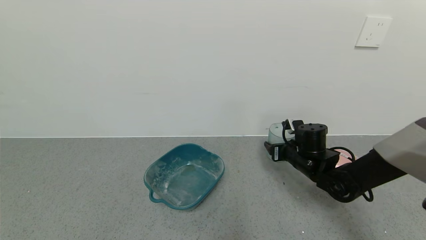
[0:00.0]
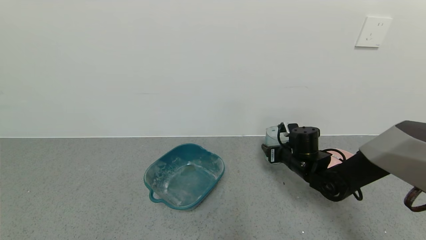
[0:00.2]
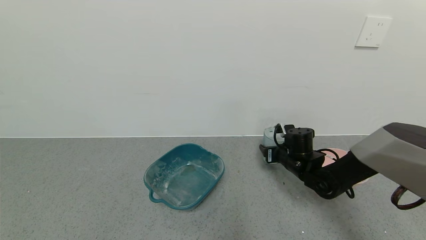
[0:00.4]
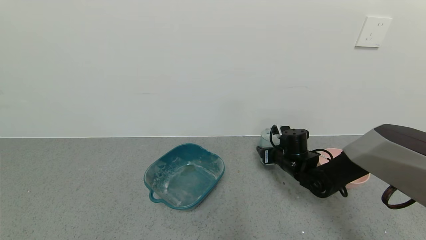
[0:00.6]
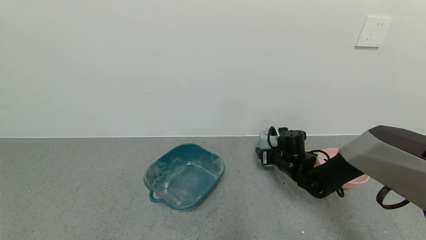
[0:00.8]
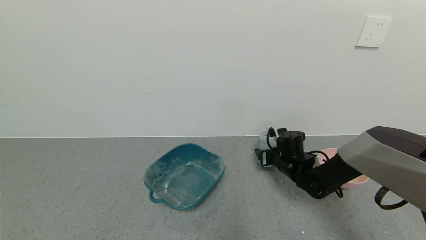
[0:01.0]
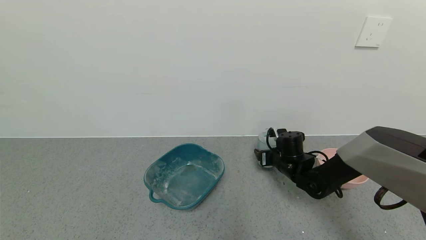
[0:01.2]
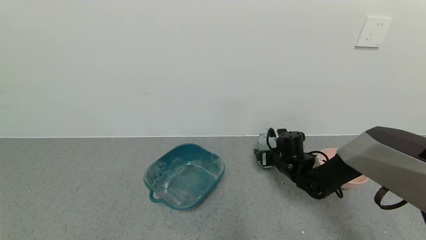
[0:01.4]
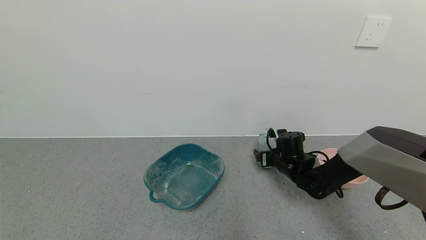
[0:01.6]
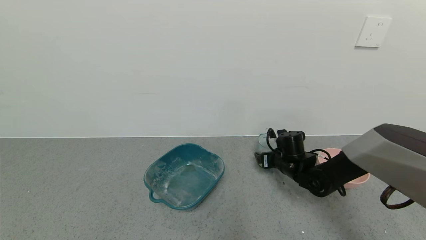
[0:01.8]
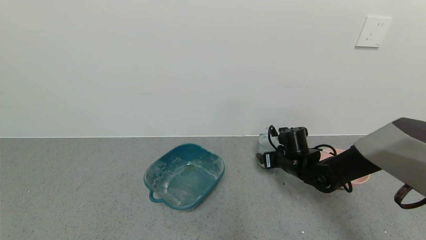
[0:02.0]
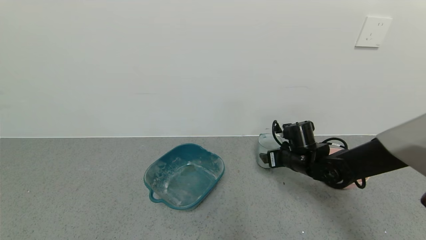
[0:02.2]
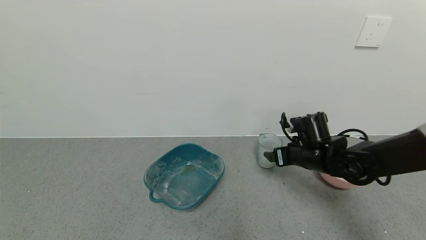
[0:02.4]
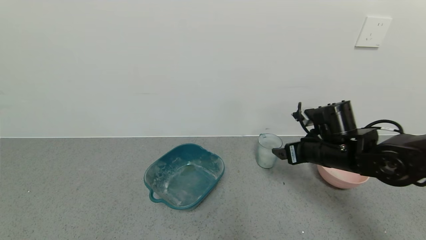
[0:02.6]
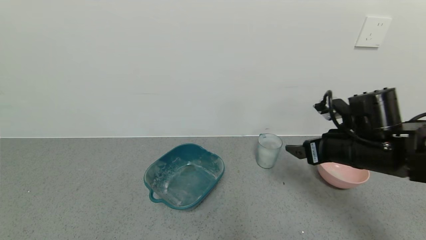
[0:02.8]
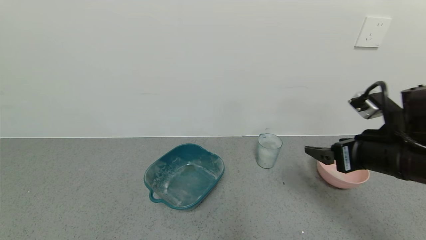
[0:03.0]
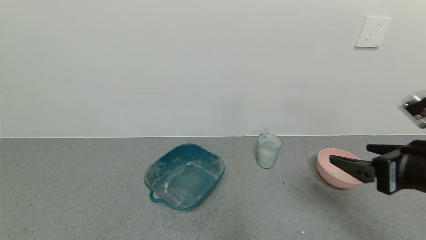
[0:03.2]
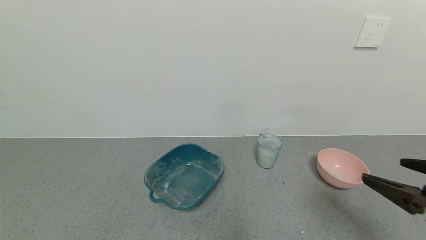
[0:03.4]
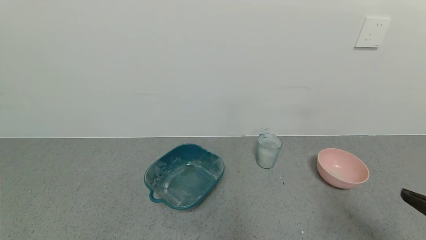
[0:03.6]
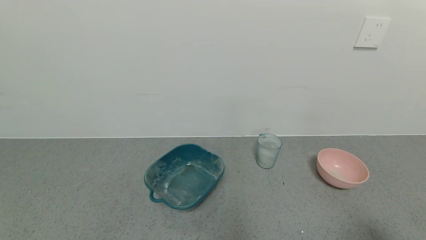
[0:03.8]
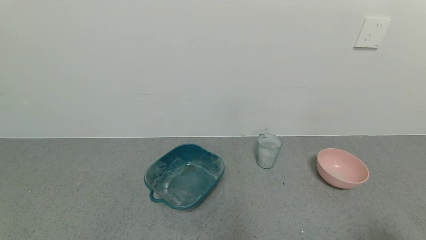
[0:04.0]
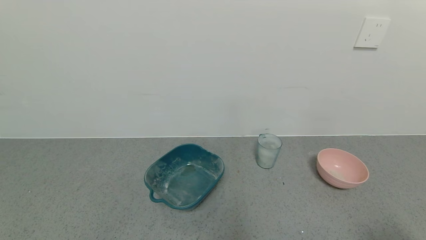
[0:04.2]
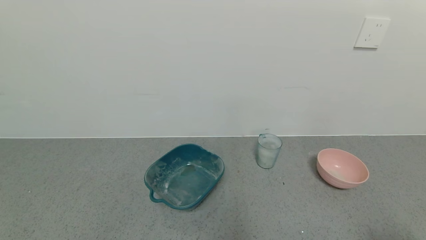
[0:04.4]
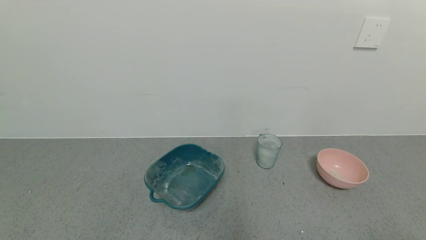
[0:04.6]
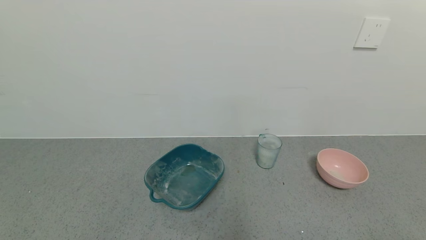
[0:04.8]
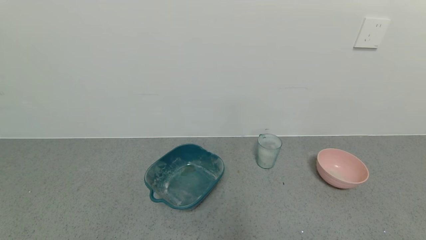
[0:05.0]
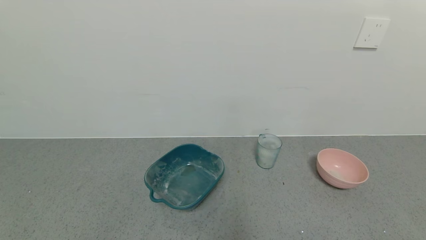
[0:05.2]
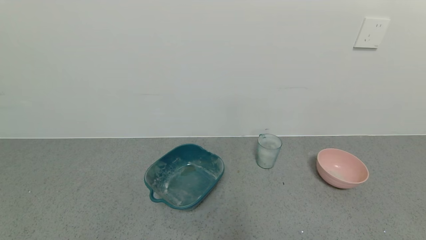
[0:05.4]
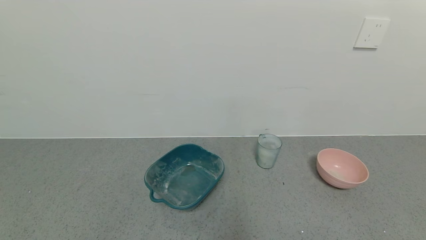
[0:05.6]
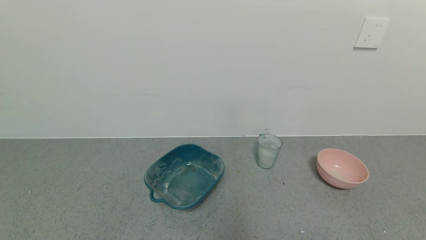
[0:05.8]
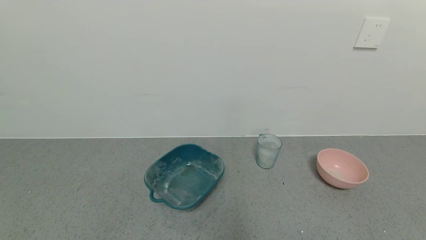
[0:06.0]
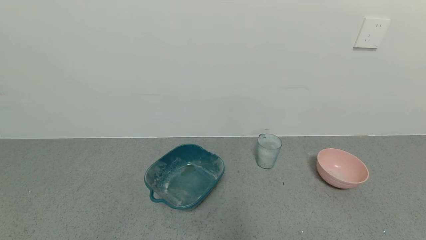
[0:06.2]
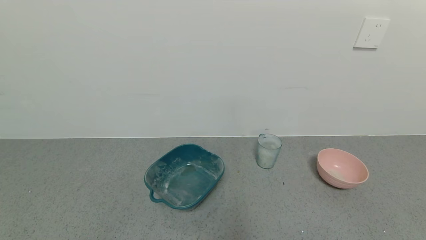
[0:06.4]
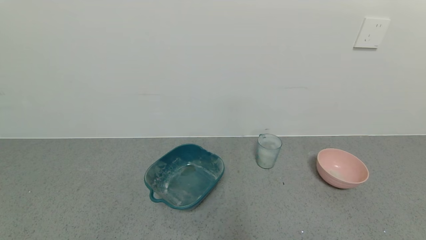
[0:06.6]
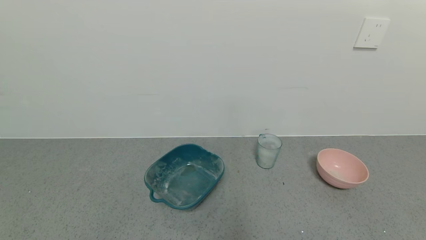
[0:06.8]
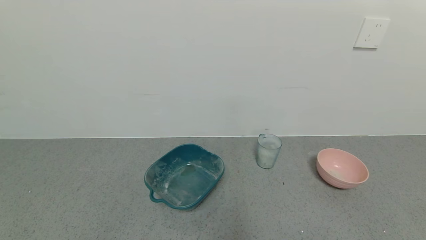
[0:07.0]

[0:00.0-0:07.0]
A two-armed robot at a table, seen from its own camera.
Task of the whole recording: use a gripper to pick up the cup and pour the powder into a bowl or tray.
Step, 0:00.0 to 0:02.2: Place the glass cup down with the right gripper.
0:00.0 to 0:01.4: The right gripper ends up roughly 5 cm from where it was, and opens its fingers.
0:01.4 to 0:02.8: The right gripper shifts some 20 cm upward and backward, and opens.
0:02.8 to 0:04.2: The right gripper goes about 30 cm backward and to the right.
